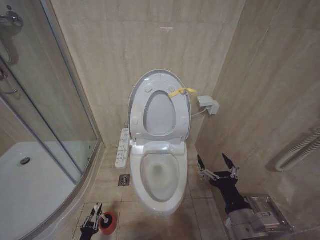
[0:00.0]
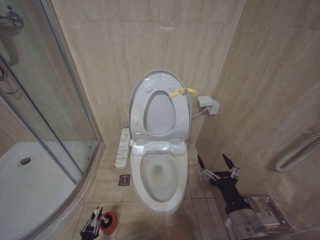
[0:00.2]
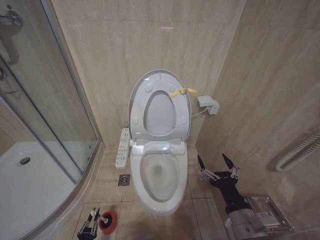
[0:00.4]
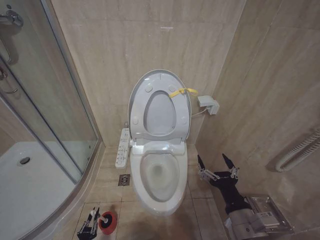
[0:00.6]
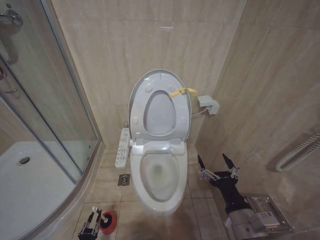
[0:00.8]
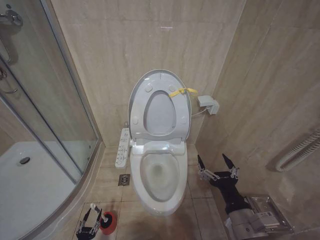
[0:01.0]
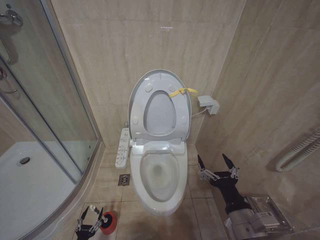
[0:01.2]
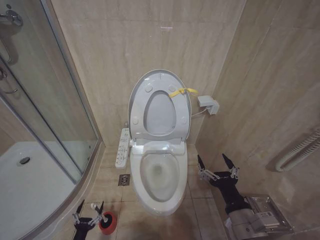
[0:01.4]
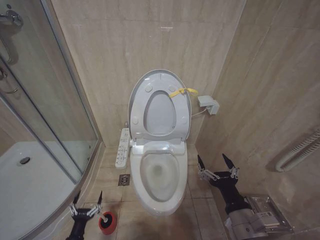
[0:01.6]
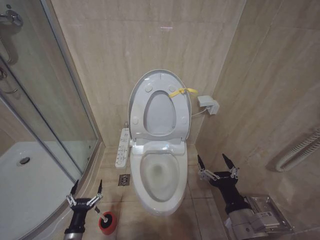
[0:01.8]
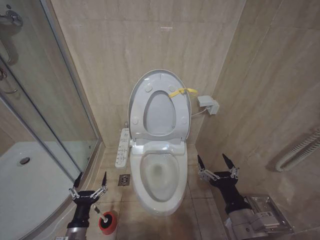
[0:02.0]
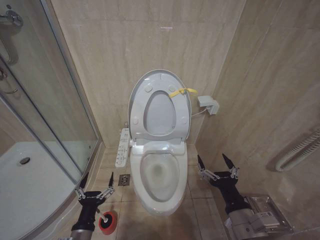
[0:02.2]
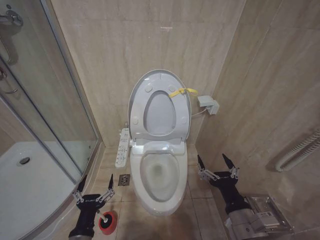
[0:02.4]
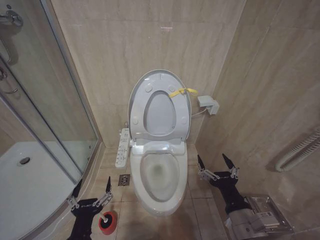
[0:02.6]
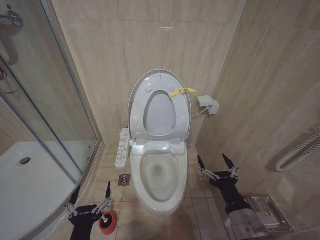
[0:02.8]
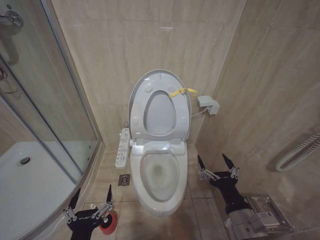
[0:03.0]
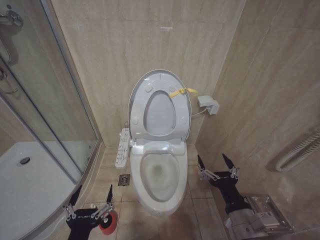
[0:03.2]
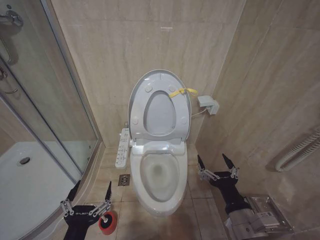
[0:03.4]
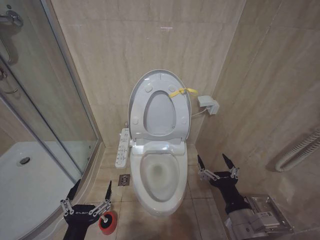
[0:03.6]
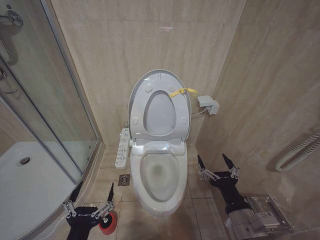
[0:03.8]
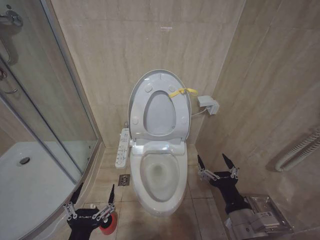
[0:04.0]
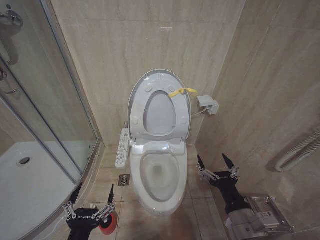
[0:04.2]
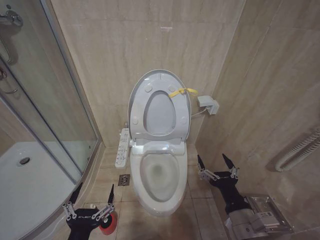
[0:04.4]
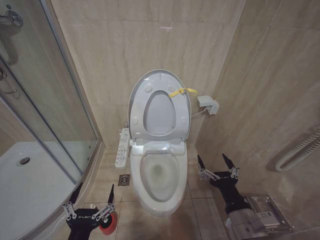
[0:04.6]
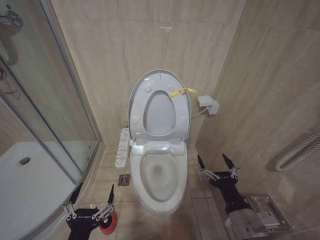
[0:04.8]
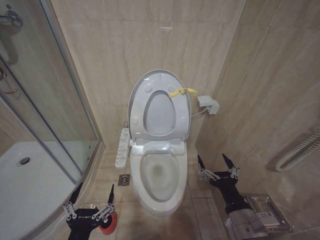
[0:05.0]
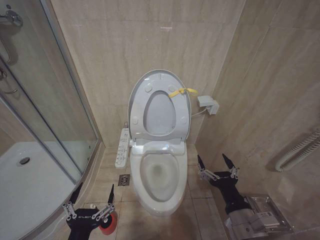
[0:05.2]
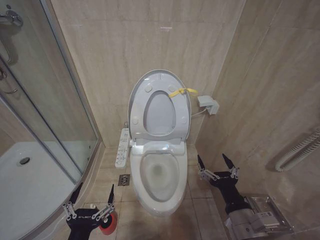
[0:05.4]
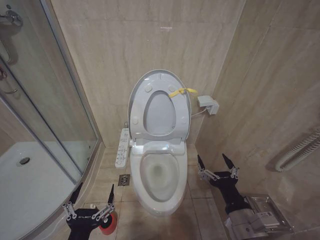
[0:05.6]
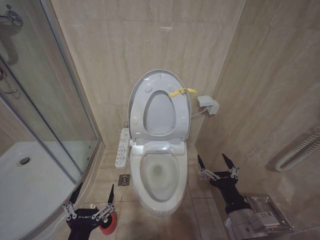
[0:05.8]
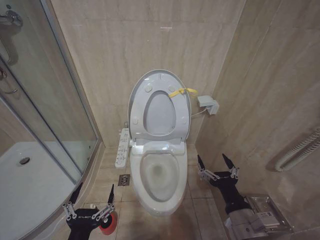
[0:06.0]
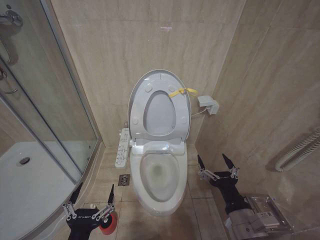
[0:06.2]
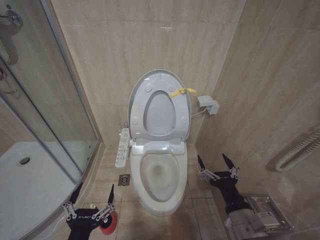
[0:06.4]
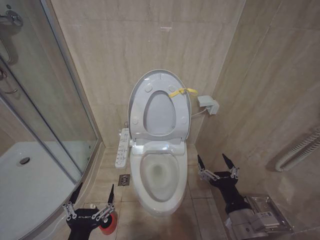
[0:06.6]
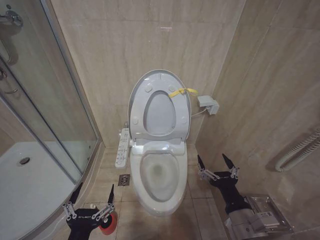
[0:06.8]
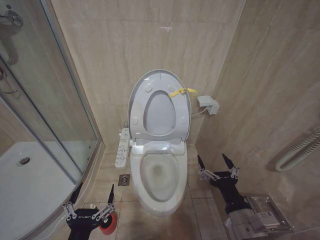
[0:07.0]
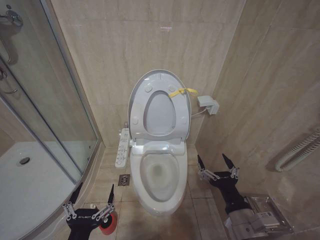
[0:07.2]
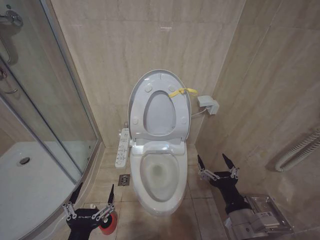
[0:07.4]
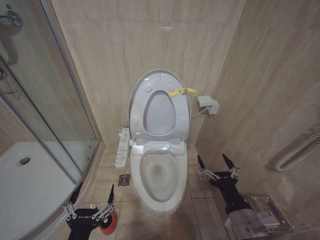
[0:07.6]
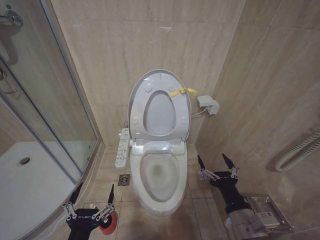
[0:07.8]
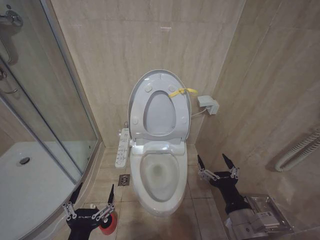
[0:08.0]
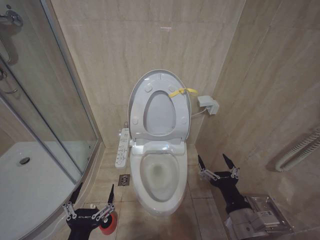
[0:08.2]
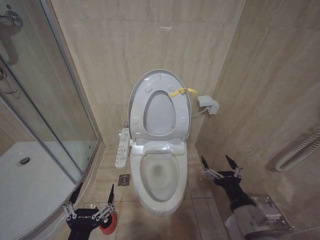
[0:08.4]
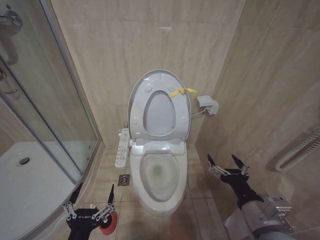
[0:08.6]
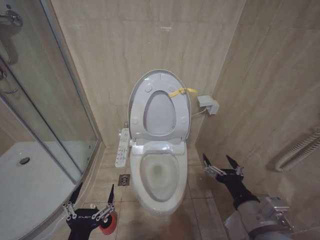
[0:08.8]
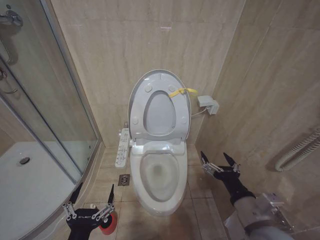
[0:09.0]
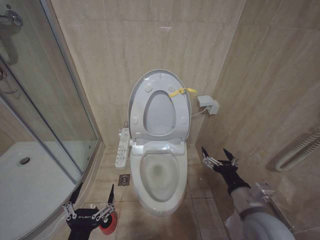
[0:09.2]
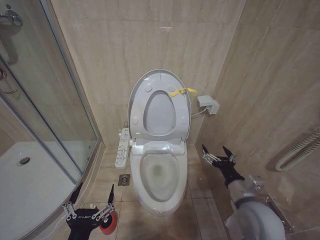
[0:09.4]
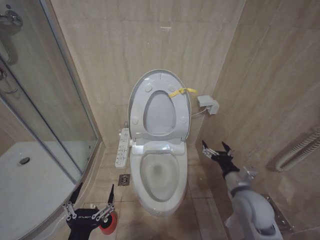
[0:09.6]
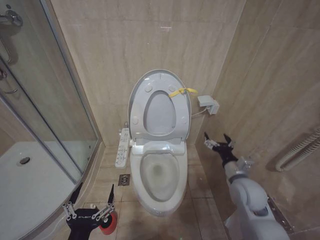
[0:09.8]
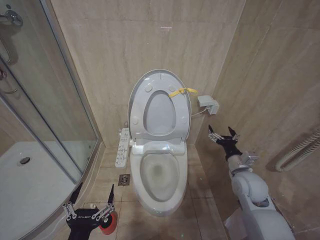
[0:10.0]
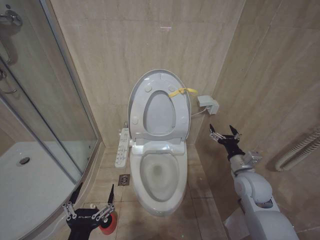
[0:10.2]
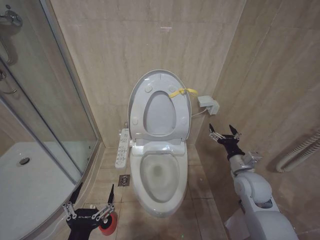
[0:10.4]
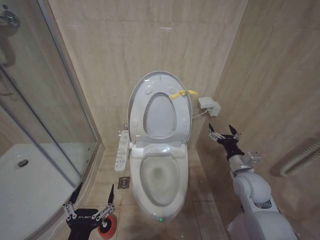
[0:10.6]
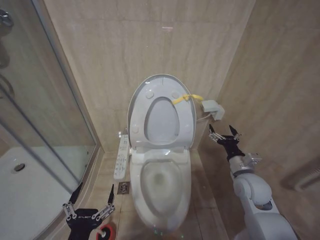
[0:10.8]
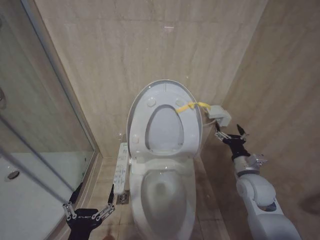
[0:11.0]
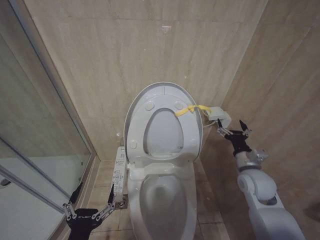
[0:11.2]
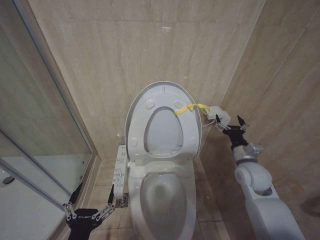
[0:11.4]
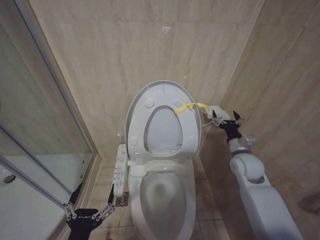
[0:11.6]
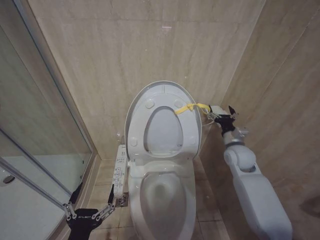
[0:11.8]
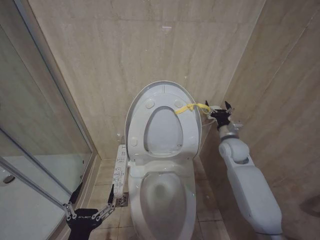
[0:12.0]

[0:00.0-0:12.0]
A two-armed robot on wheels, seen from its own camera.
Task of the whole recording: Open the toilet lid, clean the toilet bowl with a toilet brush, close the toilet lid, and flush.
0:00.0 to 0:01.6: The left gripper heads upward, covering approximately 10 cm, and opens up.
0:01.6 to 0:03.0: The left gripper is displaced upward and to the right by roughly 30 cm.
0:04.4 to 0:07.6: Both grippers stay about where they are.
0:07.6 to 0:09.0: The grippers stay close to where they were, moving slightly.
0:09.0 to 0:10.4: The right gripper travels forward and to the right by about 20 cm.
0:10.4 to 0:12.0: The right gripper heads forward, covering about 10 cm.

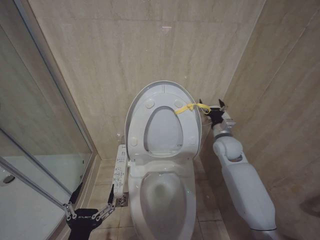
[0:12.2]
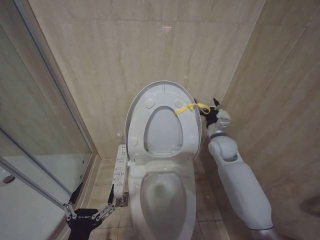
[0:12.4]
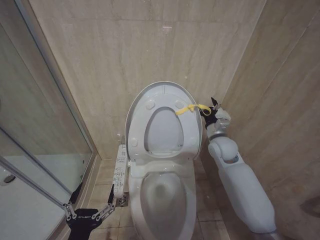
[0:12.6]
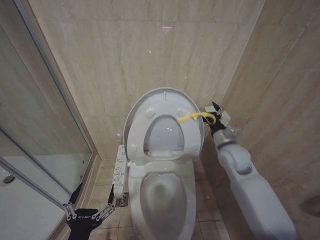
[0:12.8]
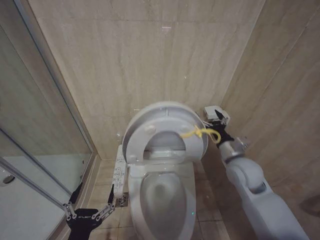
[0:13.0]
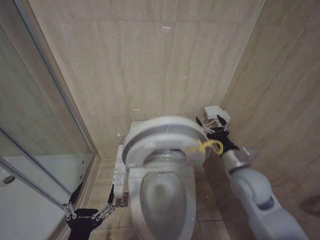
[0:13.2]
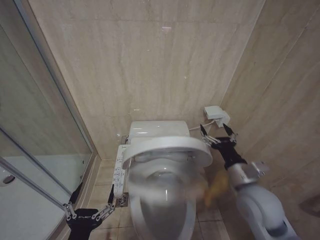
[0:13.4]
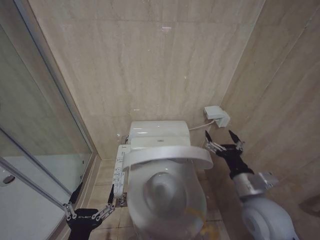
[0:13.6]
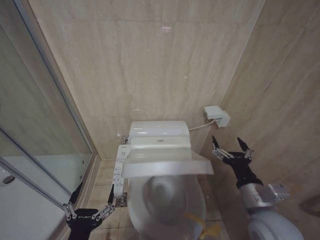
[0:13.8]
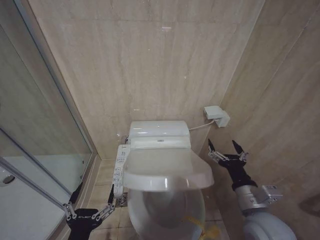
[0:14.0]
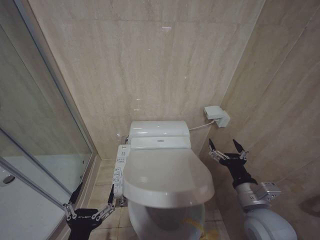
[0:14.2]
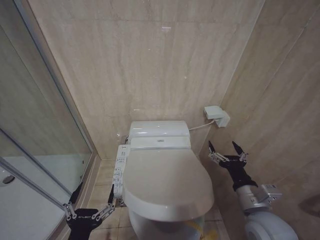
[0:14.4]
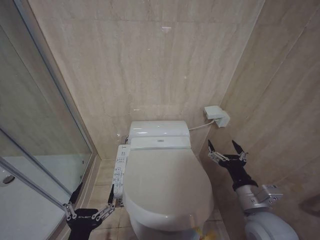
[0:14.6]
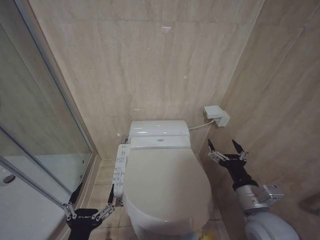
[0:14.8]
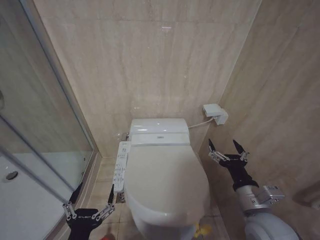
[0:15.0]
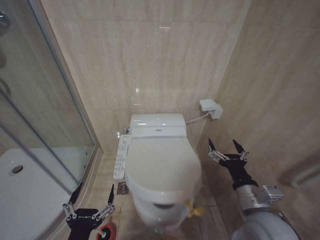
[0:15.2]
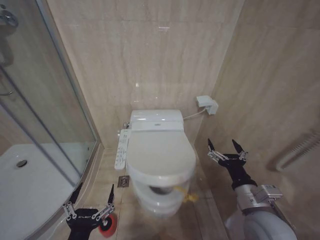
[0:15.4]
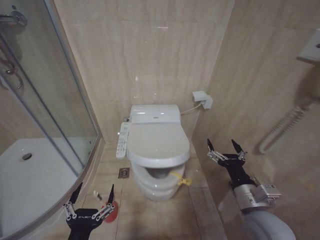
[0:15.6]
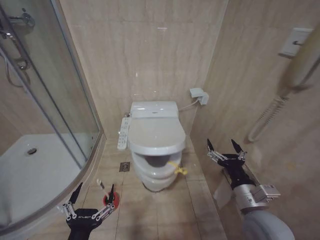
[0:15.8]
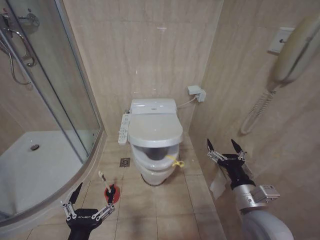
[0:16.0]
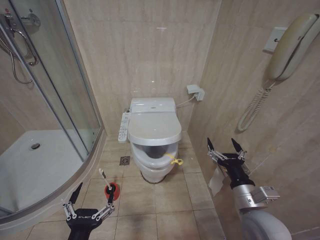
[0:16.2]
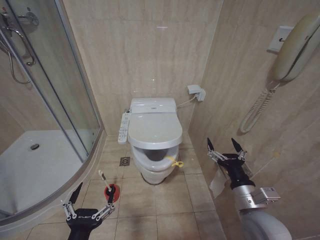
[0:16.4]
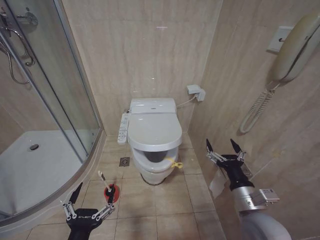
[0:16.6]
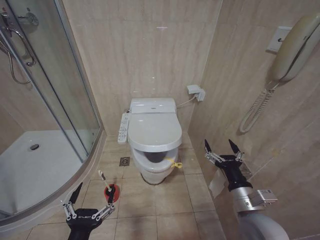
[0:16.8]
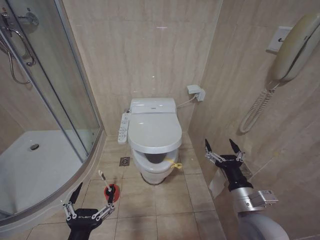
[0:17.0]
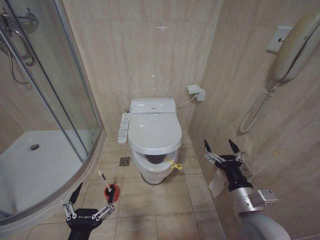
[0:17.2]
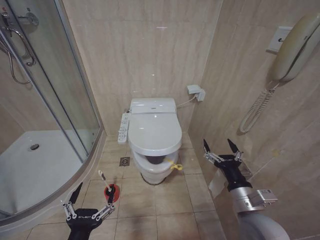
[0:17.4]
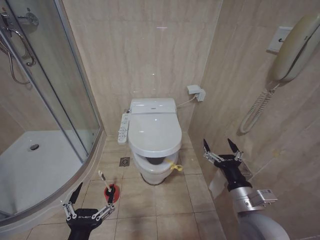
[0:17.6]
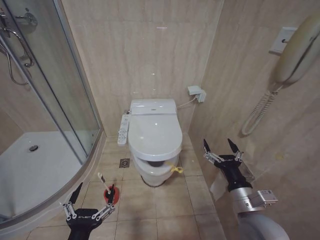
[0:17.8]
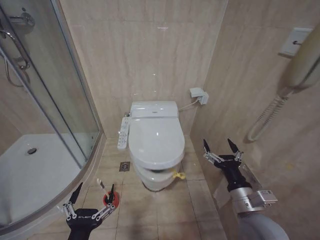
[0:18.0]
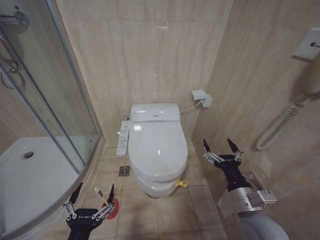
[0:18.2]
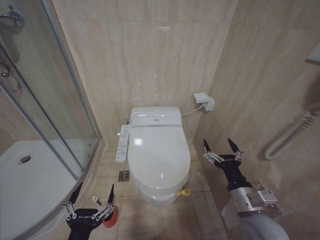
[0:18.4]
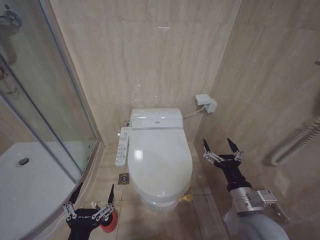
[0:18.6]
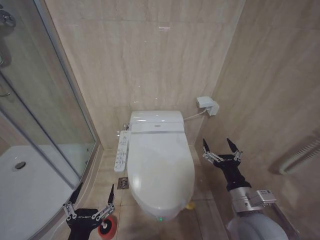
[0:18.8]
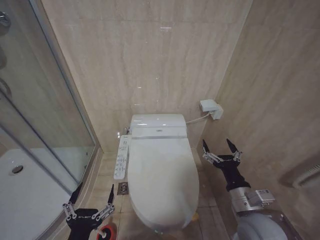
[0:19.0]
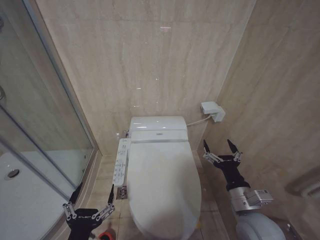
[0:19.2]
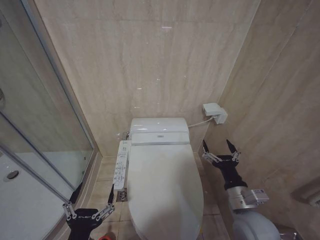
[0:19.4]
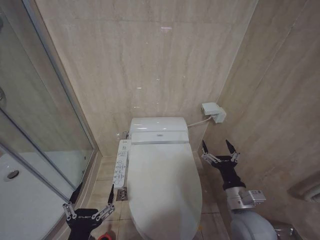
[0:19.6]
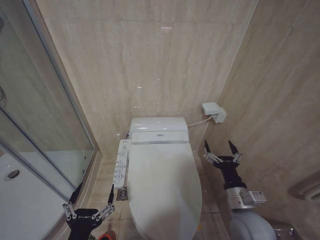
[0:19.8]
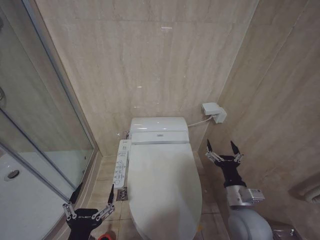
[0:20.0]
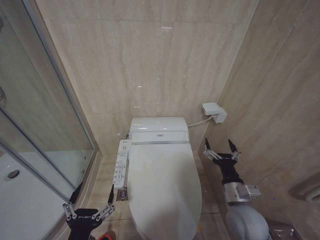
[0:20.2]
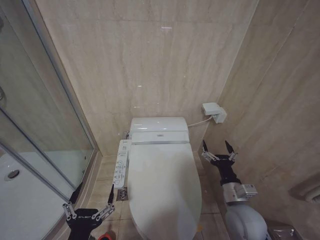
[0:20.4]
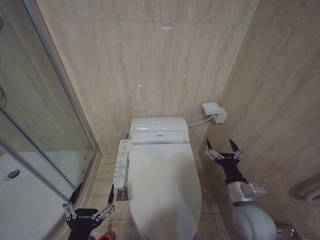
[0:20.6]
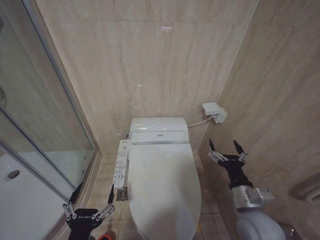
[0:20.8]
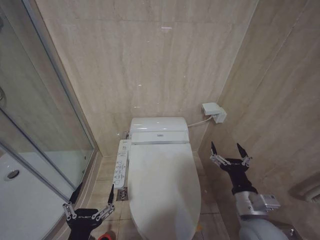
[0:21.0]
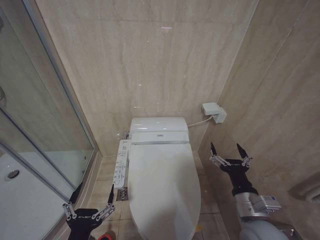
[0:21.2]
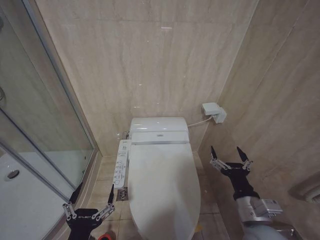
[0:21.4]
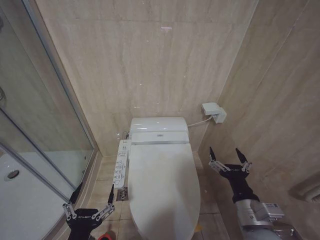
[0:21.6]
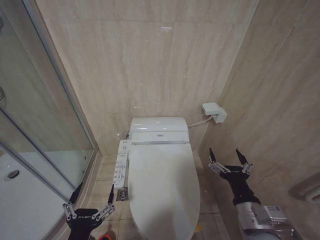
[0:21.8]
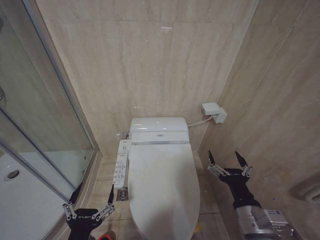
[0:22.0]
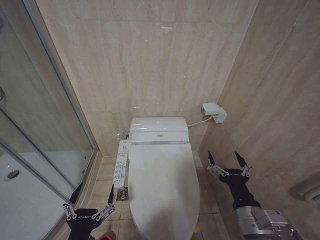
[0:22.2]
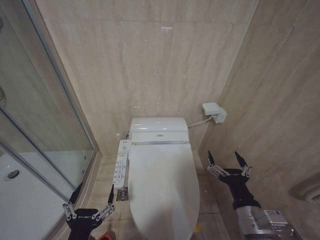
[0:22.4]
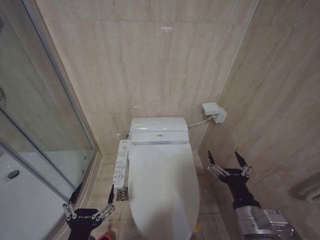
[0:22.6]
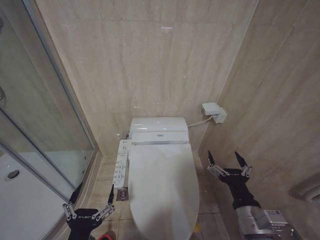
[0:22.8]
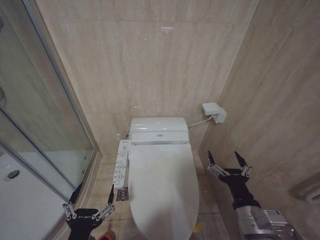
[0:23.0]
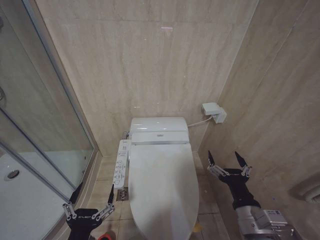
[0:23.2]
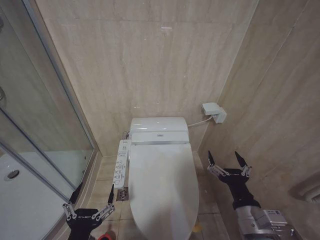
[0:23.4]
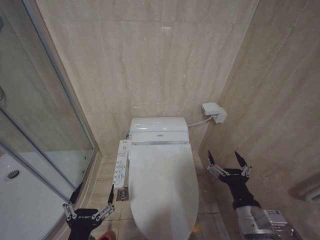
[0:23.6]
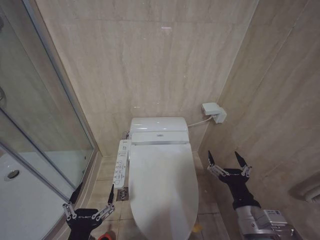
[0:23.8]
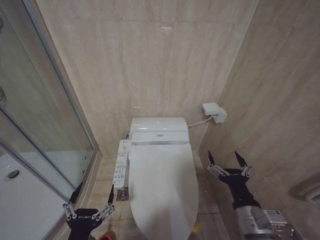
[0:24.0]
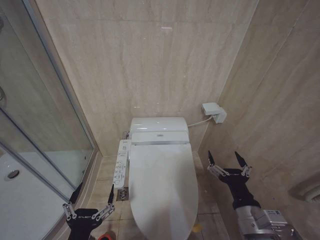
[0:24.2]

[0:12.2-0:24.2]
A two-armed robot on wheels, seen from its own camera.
Task of the whole recording: Open the toilet lid, clean the toilet bowl with a toilet brush, close the toilet lid, and flush.
0:12.2 to 0:13.8: The right gripper shifts about 25 cm backward.
0:13.8 to 0:15.2: The grippers stay close to where they were, moving slightly.
0:16.6 to 0:18.2: Both grippers stay about where they are.
0:18.2 to 0:19.8: There are only small adjustments of the grippers.
0:19.8 to 0:21.2: The grippers move only a little.
0:21.2 to 0:22.6: The grippers make only small movements.
0:22.6 to 0:24.2: Neither gripper changes place.
